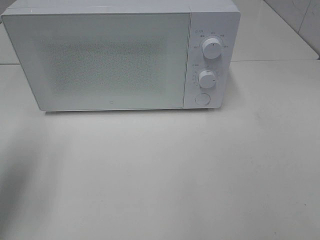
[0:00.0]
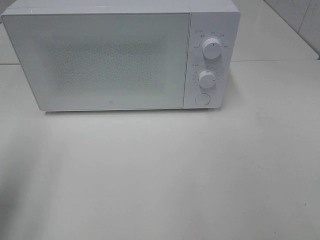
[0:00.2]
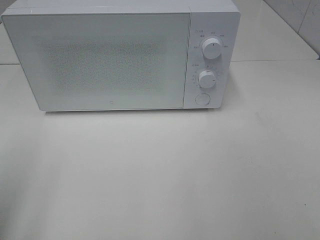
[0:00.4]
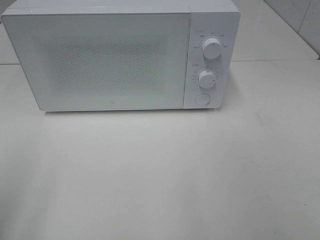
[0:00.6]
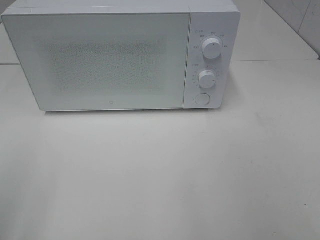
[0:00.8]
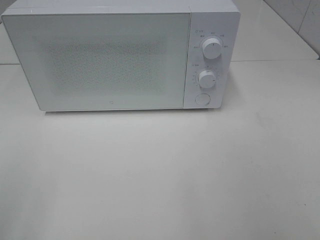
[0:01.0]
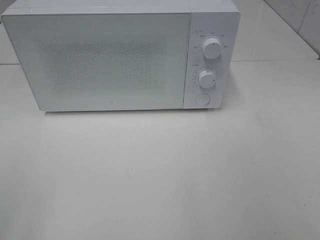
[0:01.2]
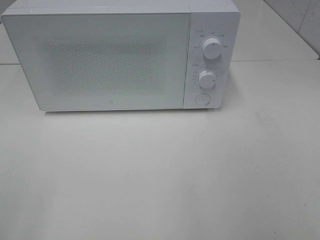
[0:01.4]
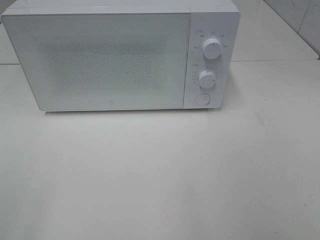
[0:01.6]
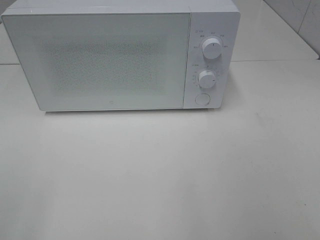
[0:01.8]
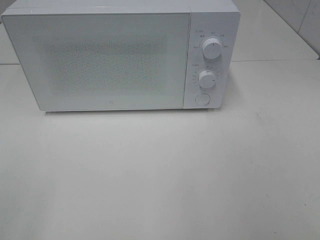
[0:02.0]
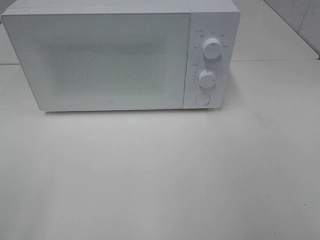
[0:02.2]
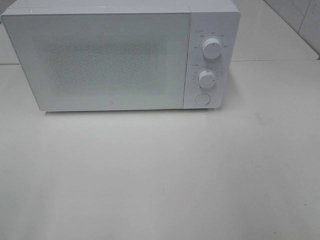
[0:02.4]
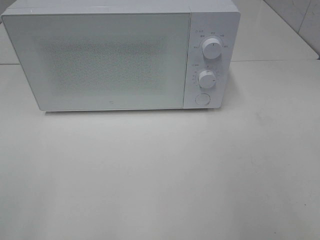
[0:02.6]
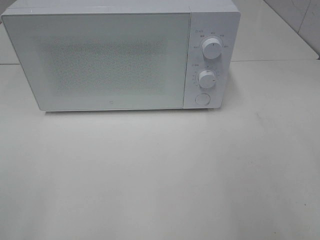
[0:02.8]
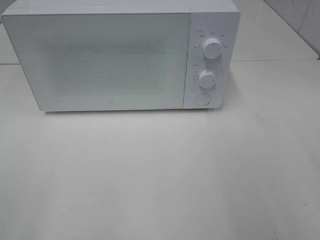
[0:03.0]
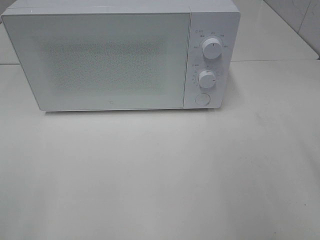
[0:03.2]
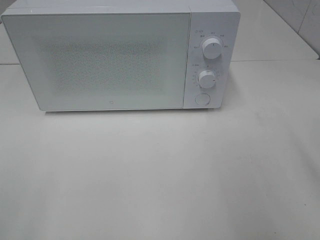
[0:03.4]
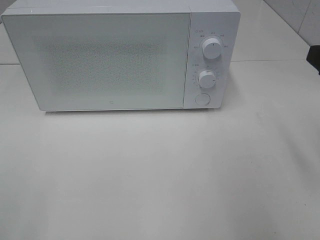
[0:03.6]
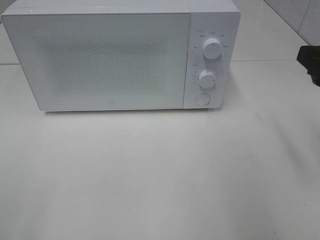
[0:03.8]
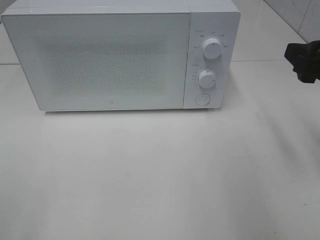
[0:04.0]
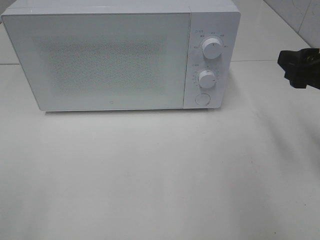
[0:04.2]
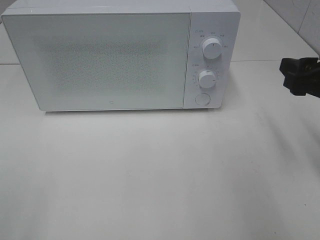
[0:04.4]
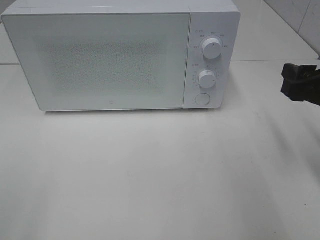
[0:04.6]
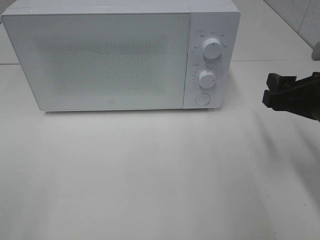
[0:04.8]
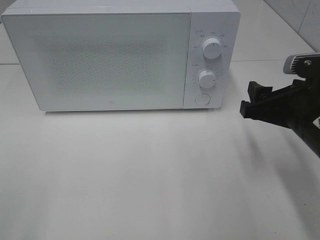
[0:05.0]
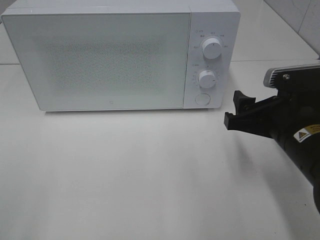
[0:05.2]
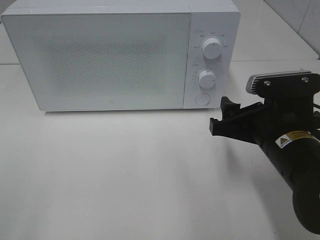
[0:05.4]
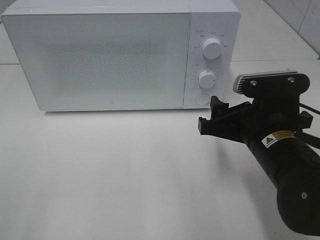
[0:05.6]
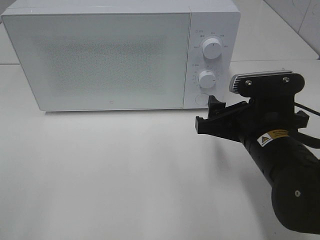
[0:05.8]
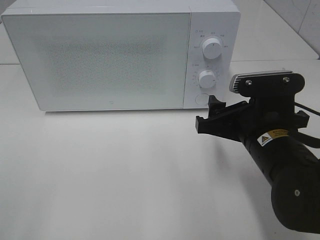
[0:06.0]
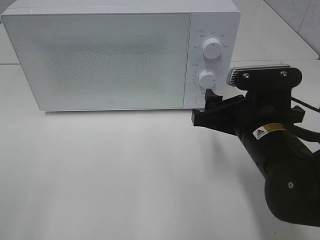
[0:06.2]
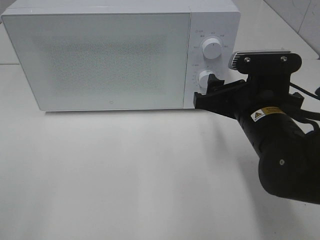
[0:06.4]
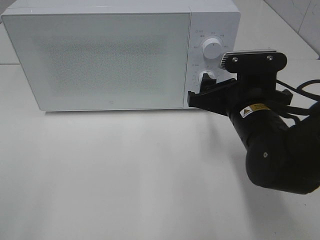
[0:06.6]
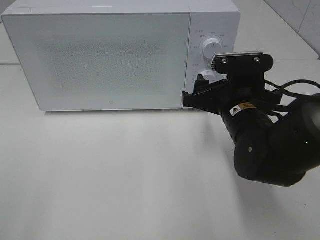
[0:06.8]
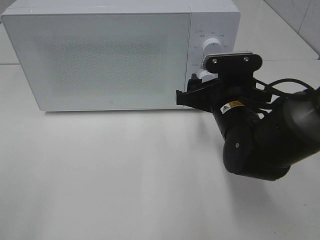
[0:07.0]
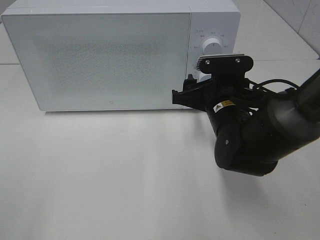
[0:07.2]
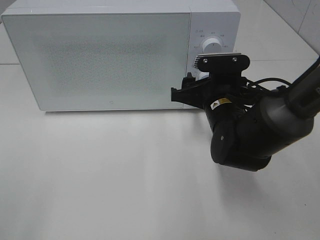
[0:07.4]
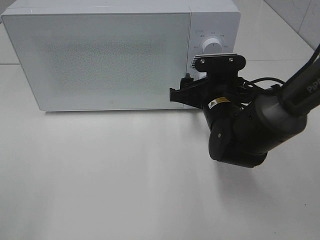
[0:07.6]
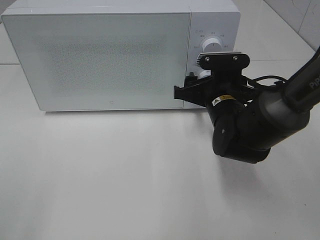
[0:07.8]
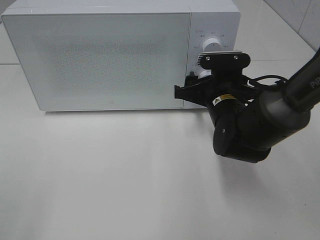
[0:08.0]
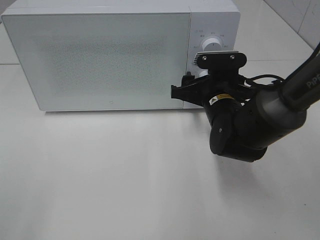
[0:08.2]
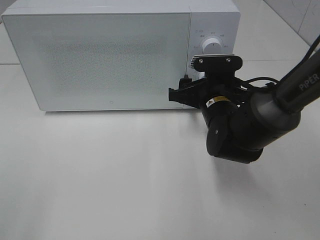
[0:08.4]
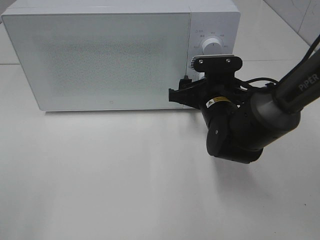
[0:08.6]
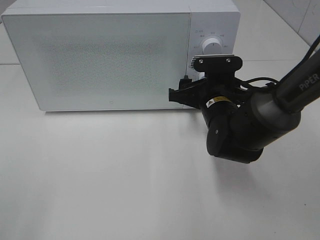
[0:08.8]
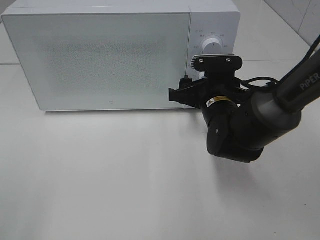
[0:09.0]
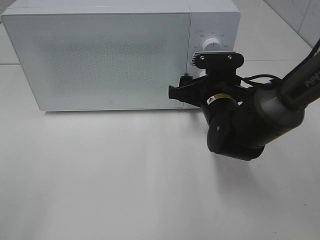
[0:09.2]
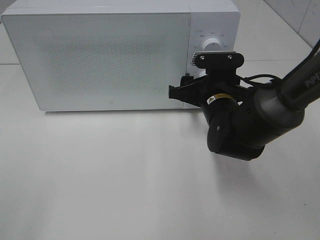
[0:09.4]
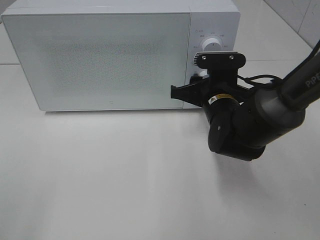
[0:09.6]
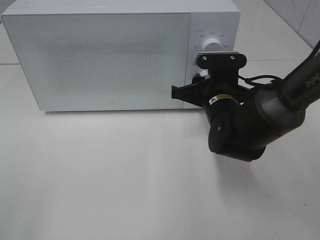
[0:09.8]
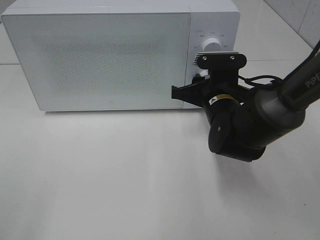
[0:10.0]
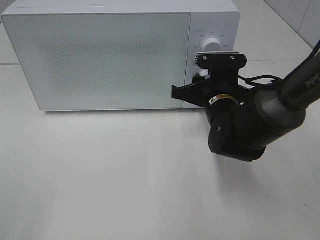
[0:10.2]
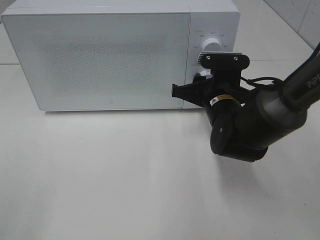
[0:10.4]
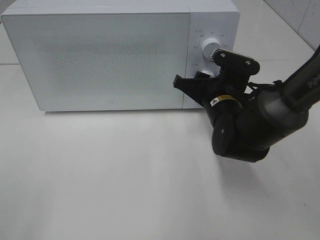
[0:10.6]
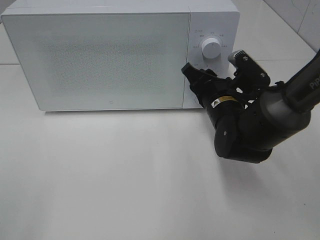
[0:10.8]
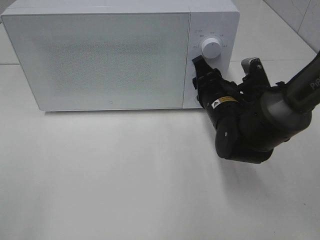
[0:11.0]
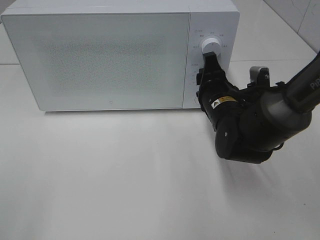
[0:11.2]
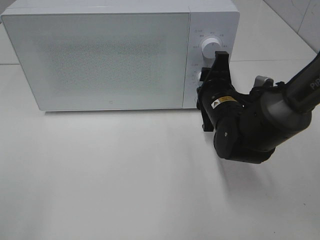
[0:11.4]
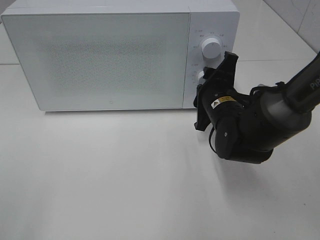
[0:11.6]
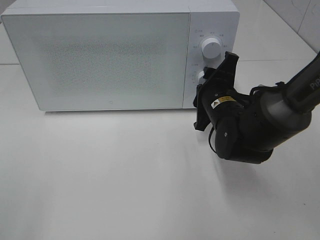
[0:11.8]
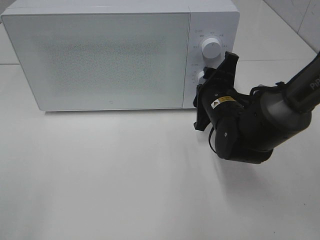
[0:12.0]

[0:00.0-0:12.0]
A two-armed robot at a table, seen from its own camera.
Task of the whole recording: Heat the burger.
0:00.0 to 0:01.6: The left gripper is displaced backward by approximately 20 cm.
0:03.0 to 0:04.4: The right gripper is displaced forward and downward by approximately 15 cm.
0:04.4 to 0:06.0: The right gripper goes some 15 cm to the left and downward.
0:06.0 to 0:07.6: The right gripper shifts approximately 10 cm forward.
0:07.6 to 0:09.0: Neither gripper changes place.
0:09.0 to 0:10.4: The right gripper closes up.

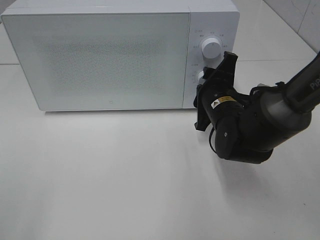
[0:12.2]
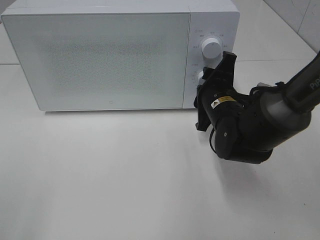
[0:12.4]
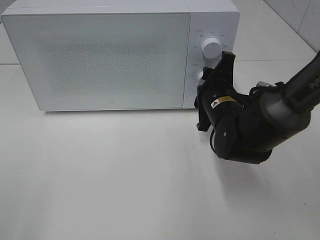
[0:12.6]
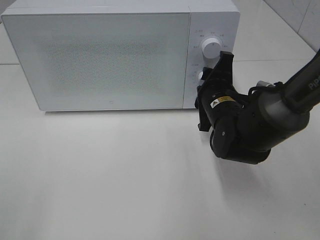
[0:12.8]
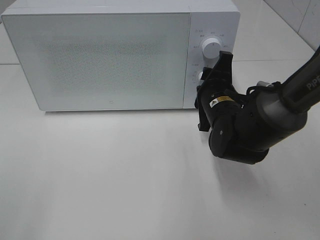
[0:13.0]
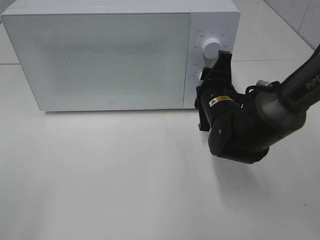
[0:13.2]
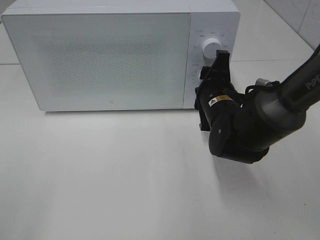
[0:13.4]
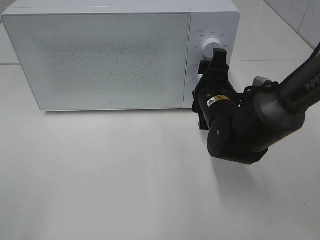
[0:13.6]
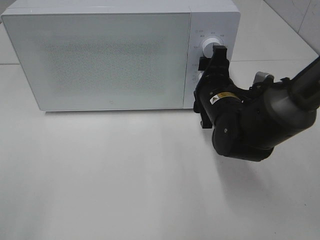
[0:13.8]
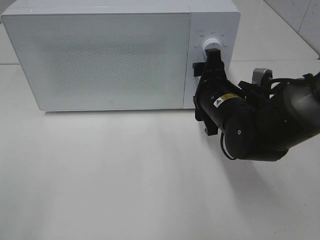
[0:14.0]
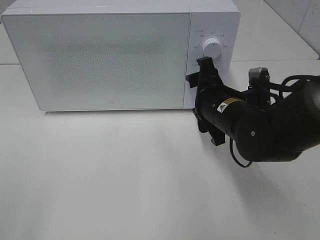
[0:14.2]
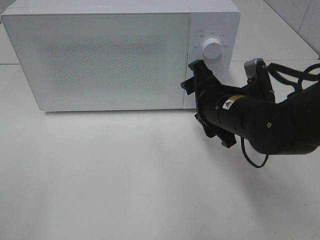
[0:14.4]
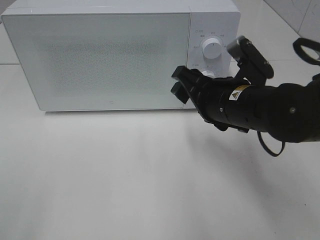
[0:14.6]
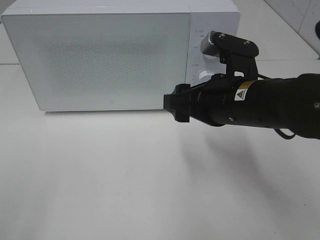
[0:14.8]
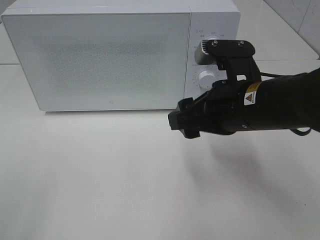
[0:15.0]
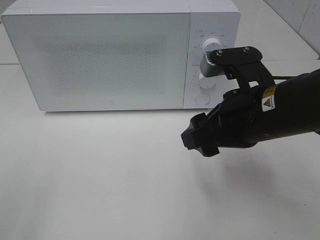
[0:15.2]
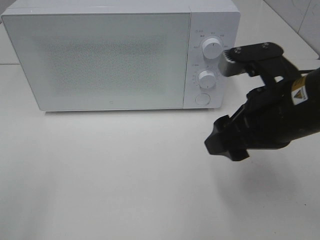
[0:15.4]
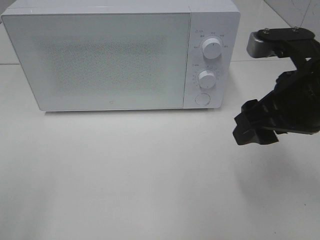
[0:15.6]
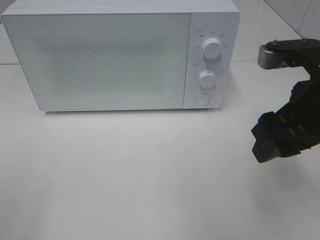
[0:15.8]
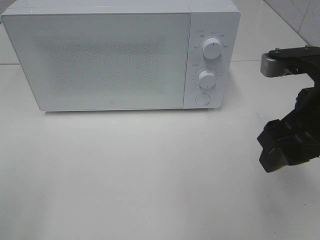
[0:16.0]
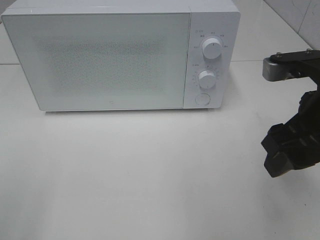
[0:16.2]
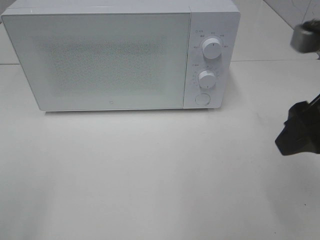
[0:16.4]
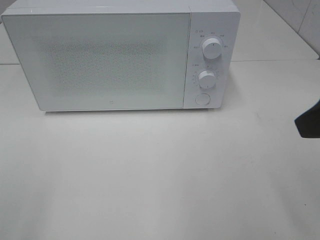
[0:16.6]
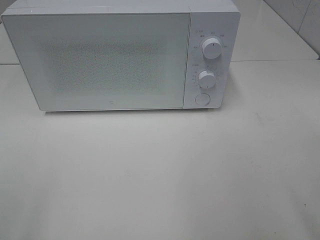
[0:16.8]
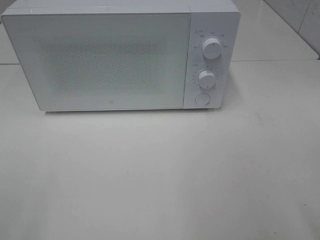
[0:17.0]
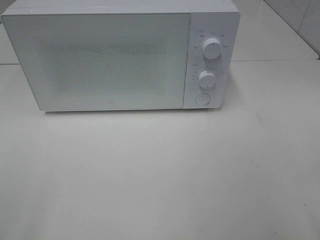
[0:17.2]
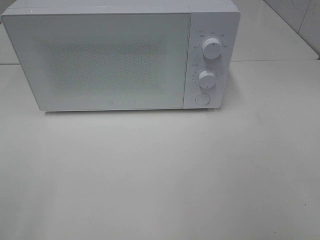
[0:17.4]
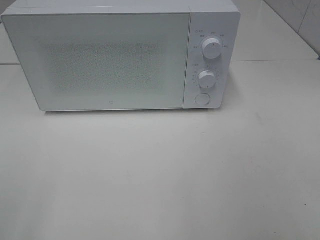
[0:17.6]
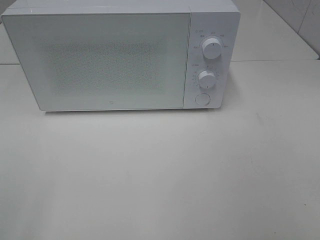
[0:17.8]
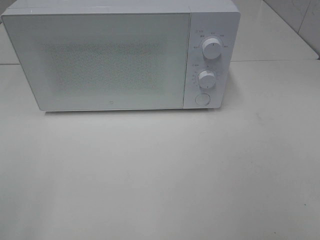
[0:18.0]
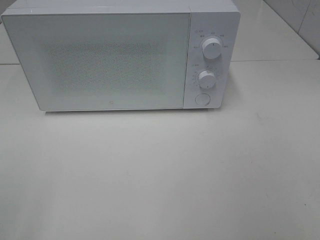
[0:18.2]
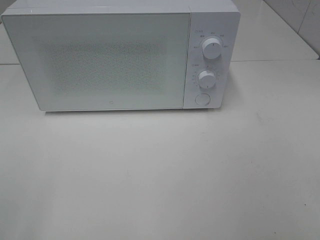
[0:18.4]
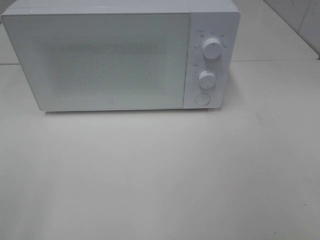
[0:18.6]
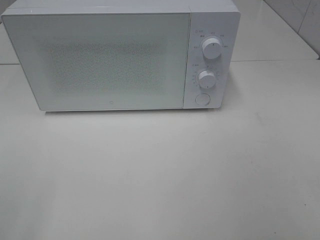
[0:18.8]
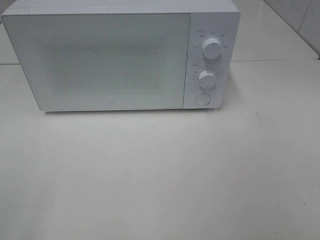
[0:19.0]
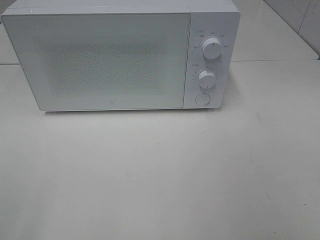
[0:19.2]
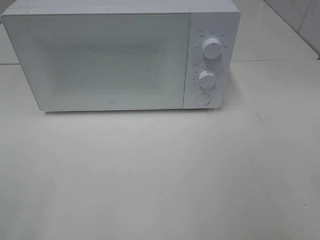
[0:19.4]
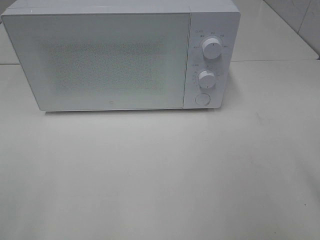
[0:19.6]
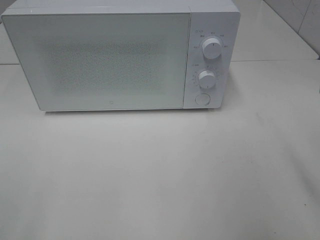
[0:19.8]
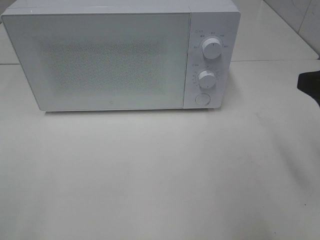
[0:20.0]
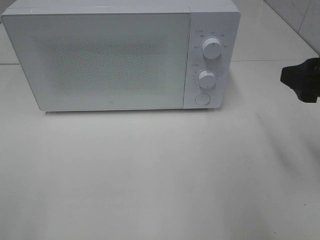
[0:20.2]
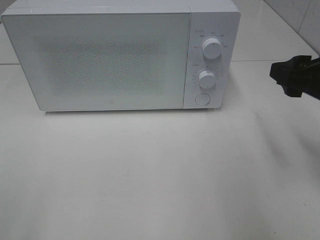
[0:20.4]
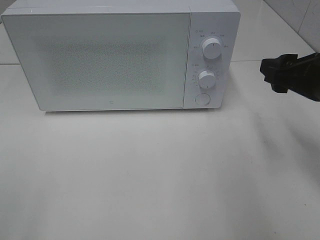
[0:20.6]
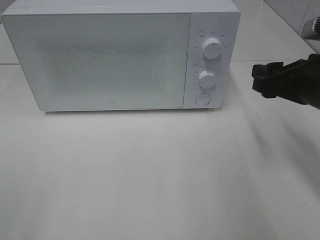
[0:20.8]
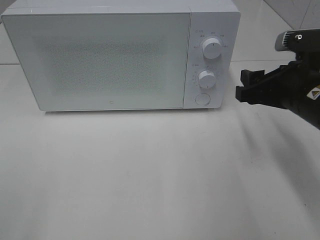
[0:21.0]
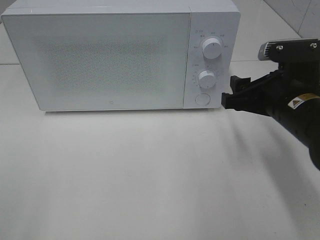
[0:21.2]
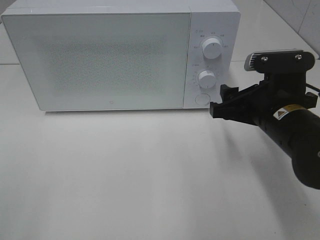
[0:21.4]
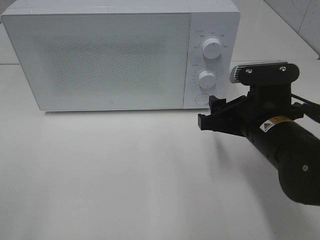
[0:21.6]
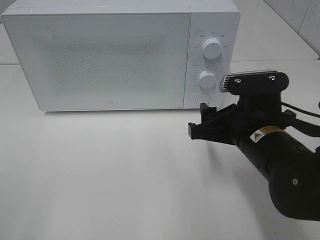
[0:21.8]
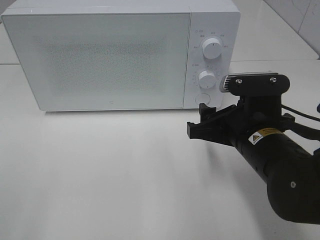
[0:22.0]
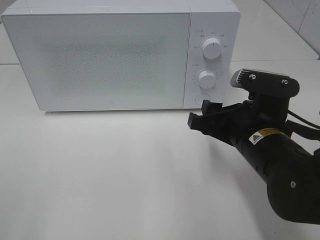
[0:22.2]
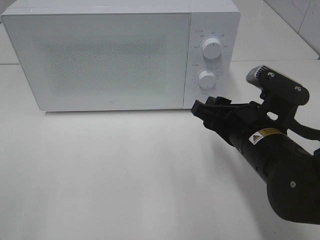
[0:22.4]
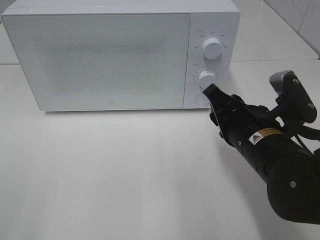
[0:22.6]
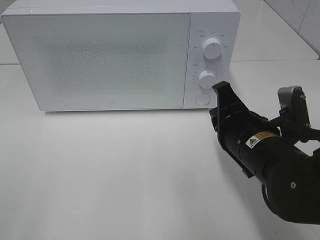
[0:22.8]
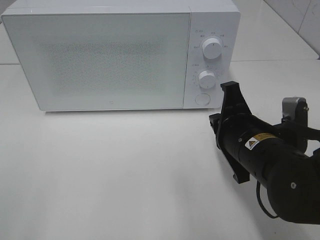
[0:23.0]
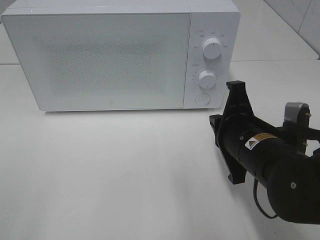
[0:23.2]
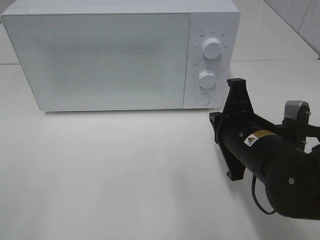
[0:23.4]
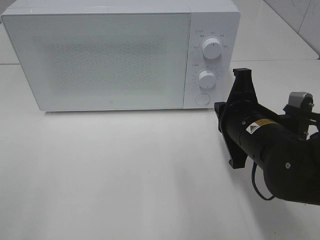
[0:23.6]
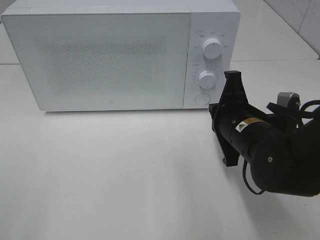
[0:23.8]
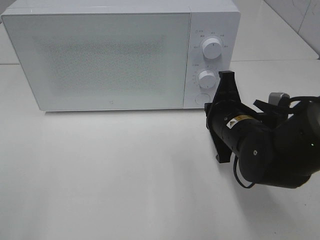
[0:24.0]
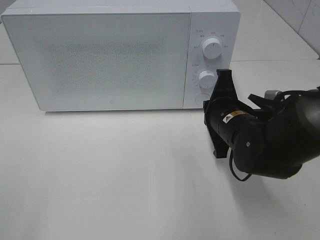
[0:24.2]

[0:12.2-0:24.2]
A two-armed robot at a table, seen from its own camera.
Task of the whole recording: Heat the burger.
0:12.2 to 0:13.8: There are only small adjustments of the grippers.
0:13.8 to 0:15.2: The right gripper heads backward and upward, covering about 15 cm.
0:15.2 to 0:16.6: The right gripper is displaced upward, to the right and backward by approximately 15 cm.
0:16.6 to 0:18.2: The right gripper shifts approximately 15 cm backward and to the right.
0:19.8 to 0:21.2: The right gripper shifts approximately 15 cm forward, downward and to the left.
0:21.2 to 0:22.6: The right gripper travels to the left by about 5 cm, and closes.
0:22.6 to 0:24.2: The right gripper travels forward by about 5 cm, and closes.
